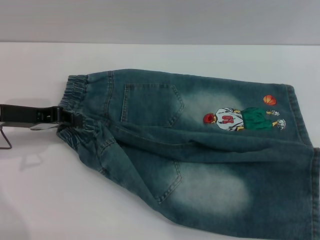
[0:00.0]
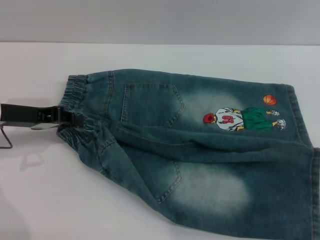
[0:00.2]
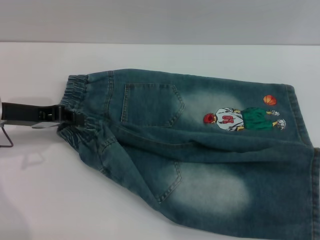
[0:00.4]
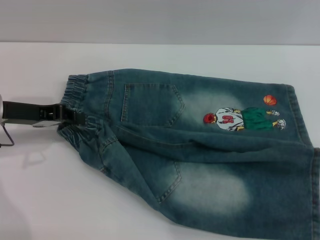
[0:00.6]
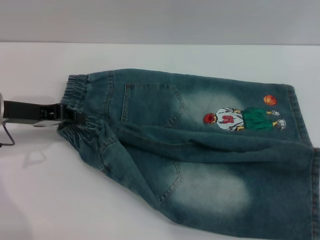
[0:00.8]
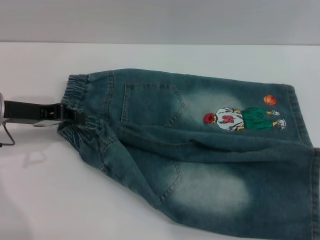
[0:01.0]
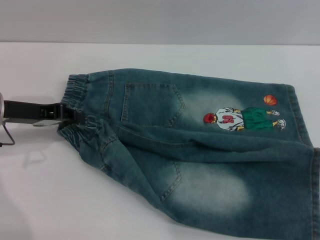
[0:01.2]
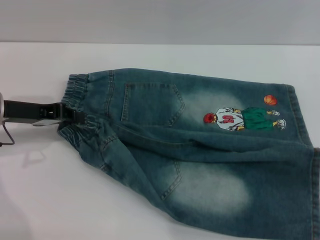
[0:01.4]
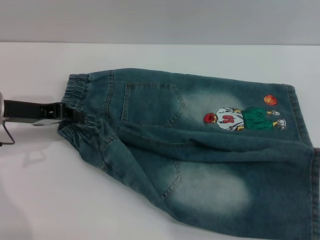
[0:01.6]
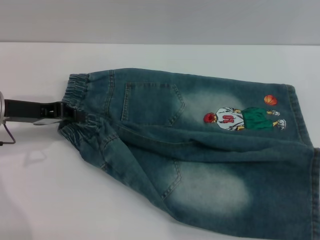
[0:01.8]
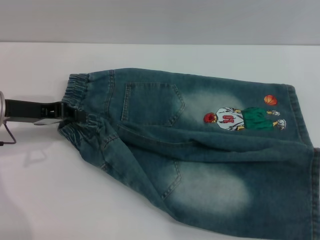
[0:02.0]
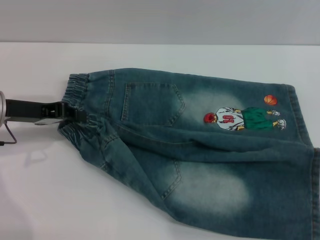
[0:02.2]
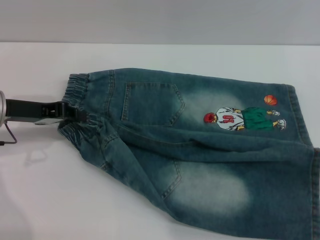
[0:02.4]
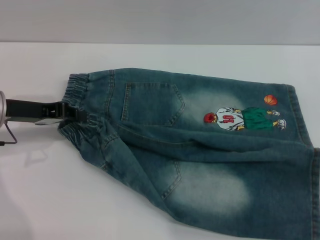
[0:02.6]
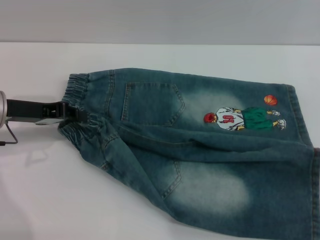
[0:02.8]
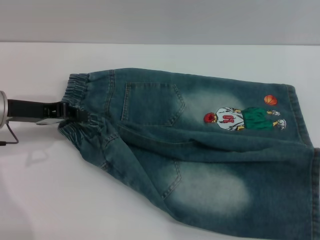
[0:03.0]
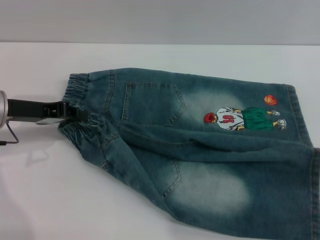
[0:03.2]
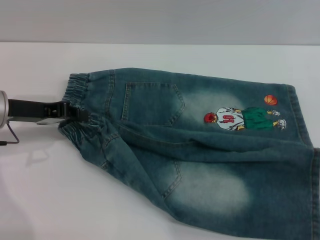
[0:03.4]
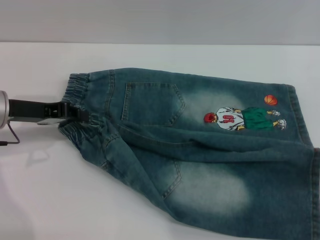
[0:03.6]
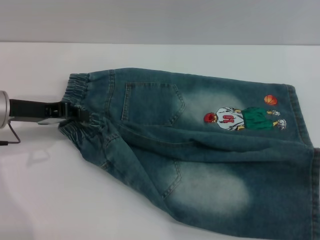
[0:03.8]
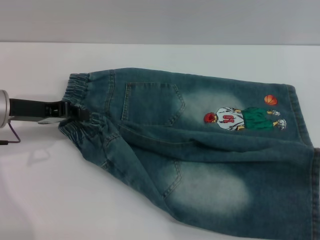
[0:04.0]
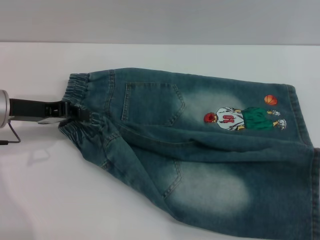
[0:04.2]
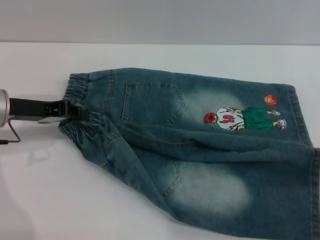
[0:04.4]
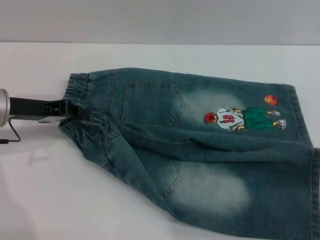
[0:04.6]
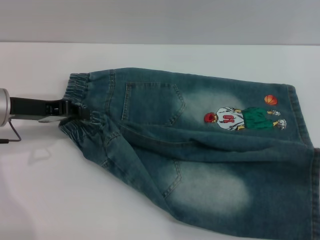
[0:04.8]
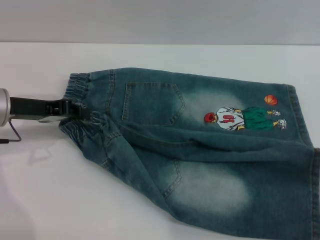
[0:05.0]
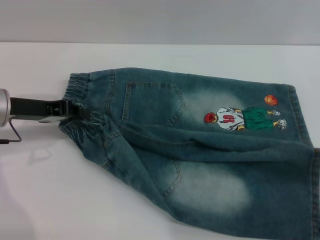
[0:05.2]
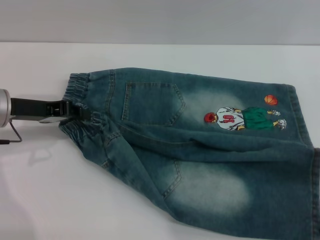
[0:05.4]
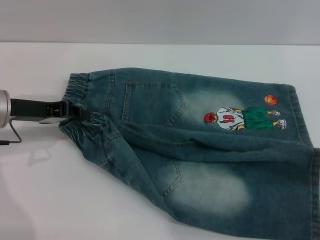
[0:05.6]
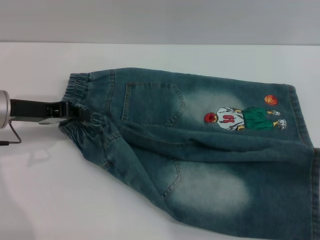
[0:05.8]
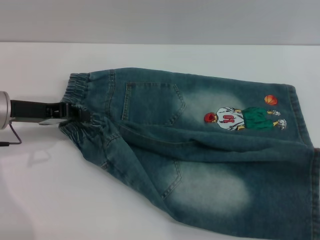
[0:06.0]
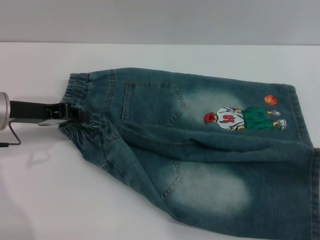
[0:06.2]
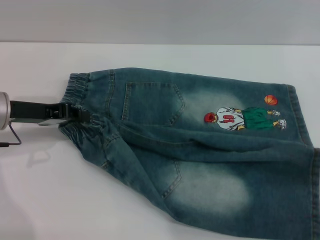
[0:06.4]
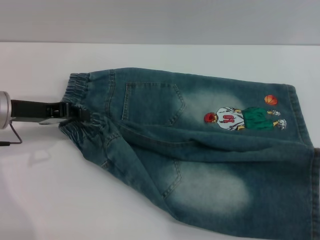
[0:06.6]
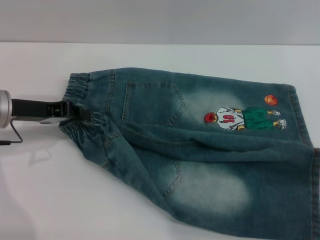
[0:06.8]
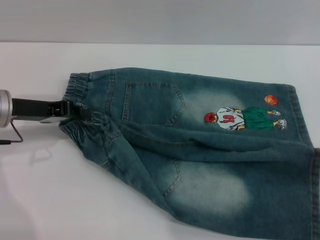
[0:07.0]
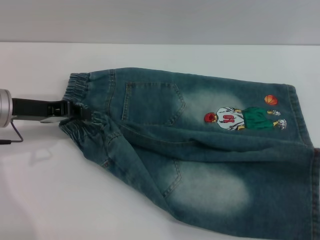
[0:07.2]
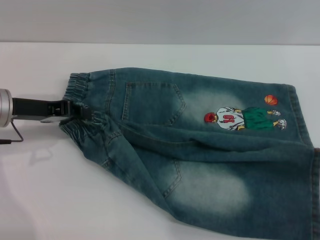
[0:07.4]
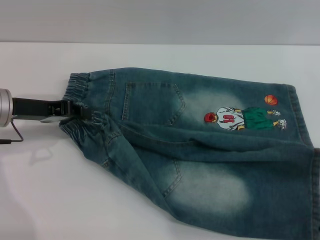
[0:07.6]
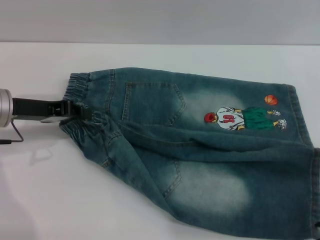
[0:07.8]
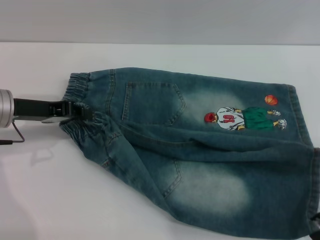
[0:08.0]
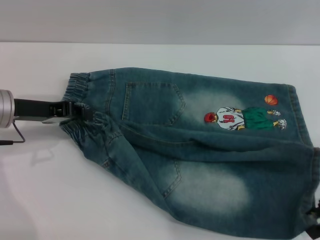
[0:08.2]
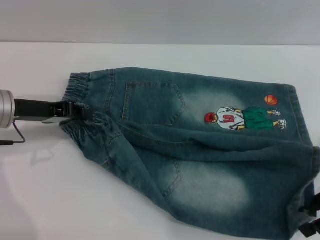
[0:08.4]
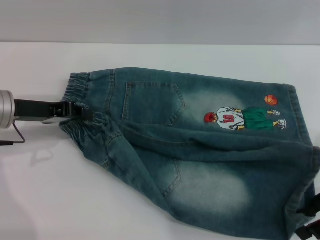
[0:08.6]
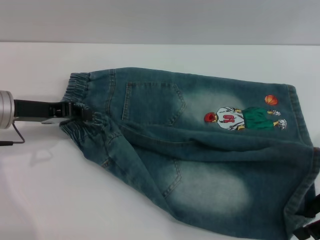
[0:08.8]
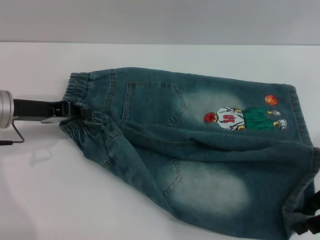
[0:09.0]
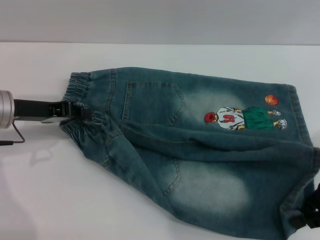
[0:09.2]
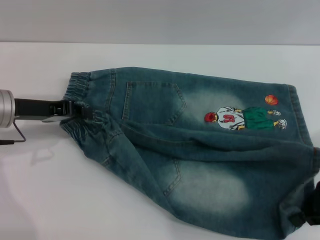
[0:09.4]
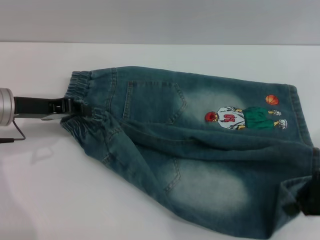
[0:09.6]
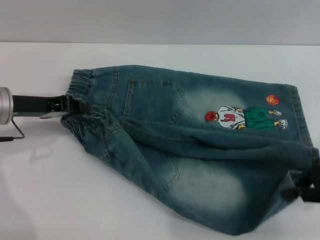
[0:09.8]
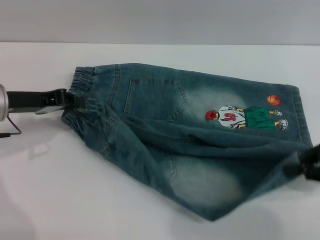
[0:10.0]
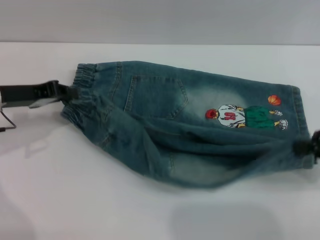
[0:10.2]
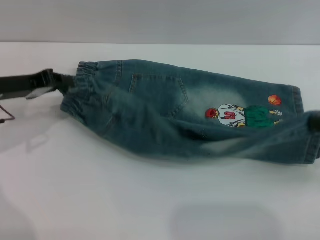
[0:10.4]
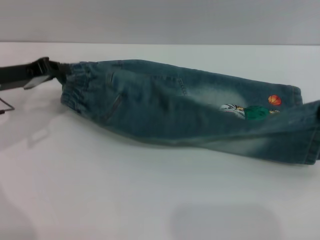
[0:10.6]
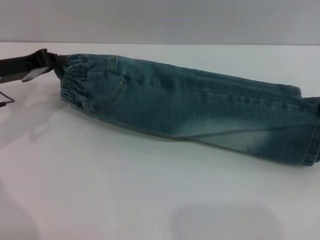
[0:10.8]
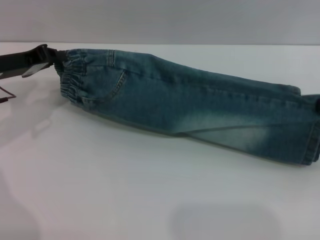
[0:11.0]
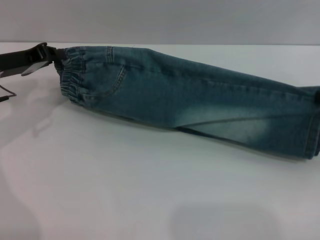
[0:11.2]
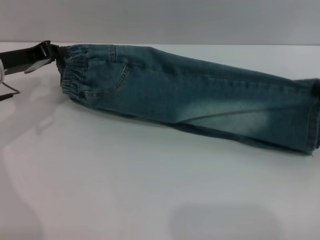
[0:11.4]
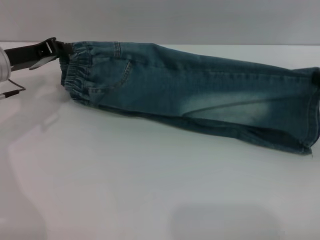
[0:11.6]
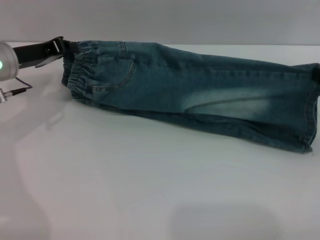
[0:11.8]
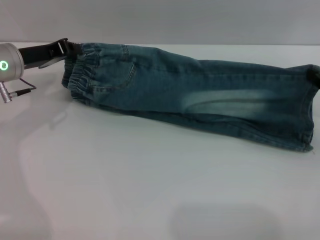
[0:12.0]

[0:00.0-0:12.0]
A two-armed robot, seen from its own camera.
0:00.0 to 0:01.6: The right gripper moves about 5 cm.
0:01.6 to 0:04.4: The grippers move only a little.
0:06.0 to 0:07.6: The grippers stay close to where they were, moving slightly.
0:07.6 to 0:09.0: The grippers make only small movements.
0:09.0 to 0:10.4: The right gripper goes roughly 5 cm to the right, and closes up.
0:10.4 to 0:12.0: The right gripper moves forward, about 5 cm; the left gripper shifts by roughly 5 cm.

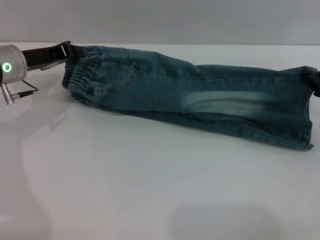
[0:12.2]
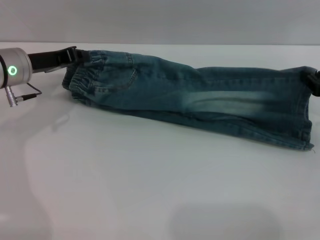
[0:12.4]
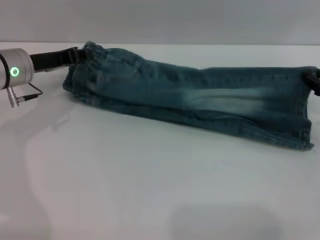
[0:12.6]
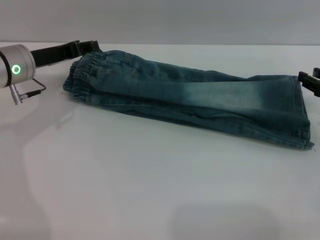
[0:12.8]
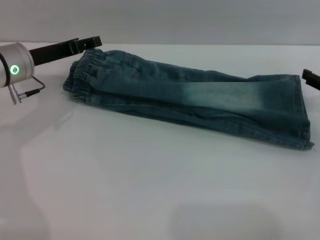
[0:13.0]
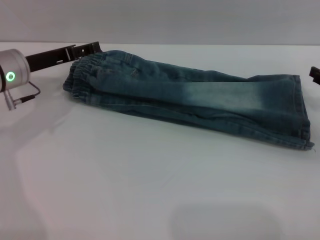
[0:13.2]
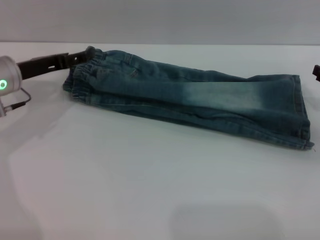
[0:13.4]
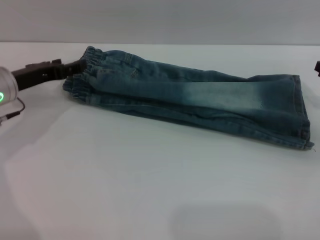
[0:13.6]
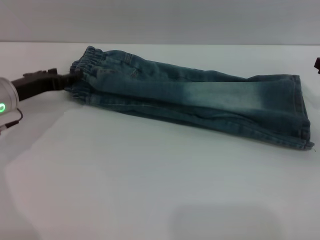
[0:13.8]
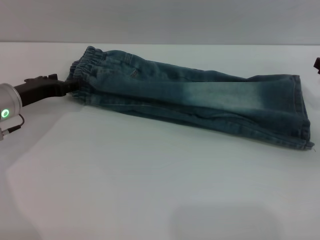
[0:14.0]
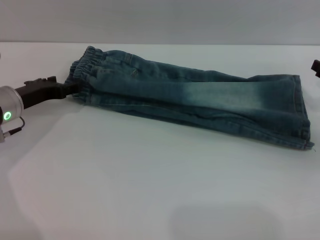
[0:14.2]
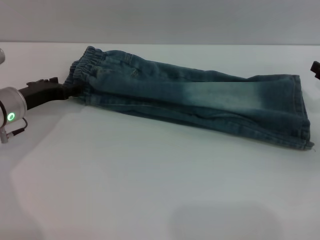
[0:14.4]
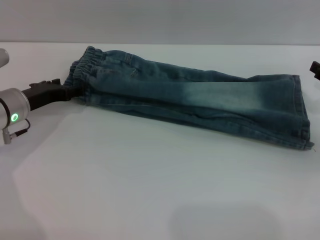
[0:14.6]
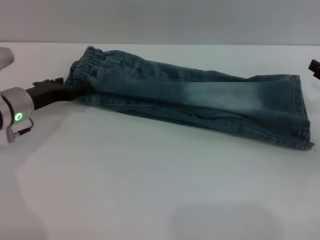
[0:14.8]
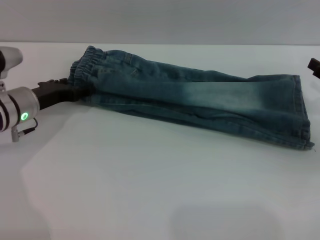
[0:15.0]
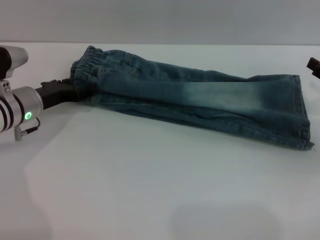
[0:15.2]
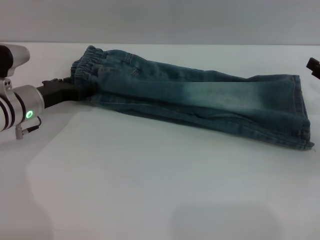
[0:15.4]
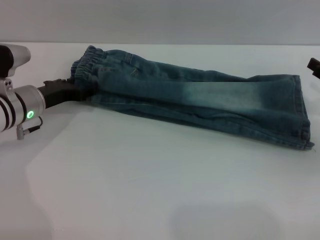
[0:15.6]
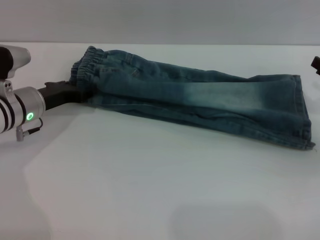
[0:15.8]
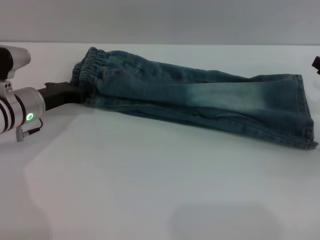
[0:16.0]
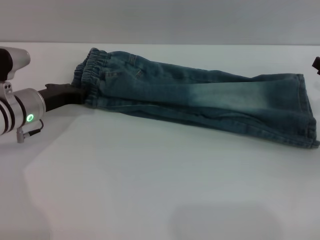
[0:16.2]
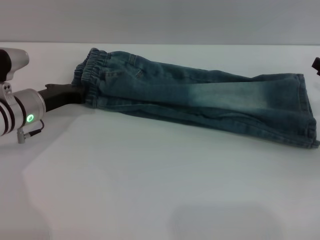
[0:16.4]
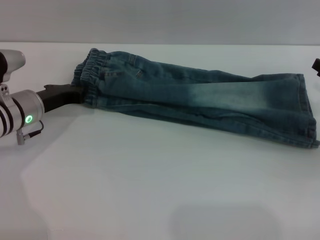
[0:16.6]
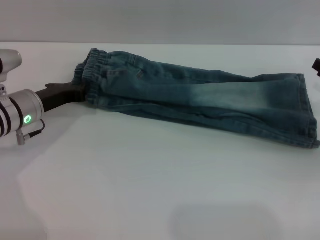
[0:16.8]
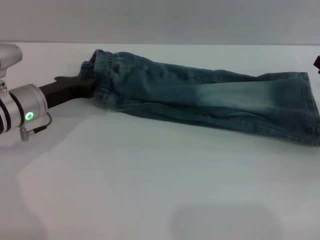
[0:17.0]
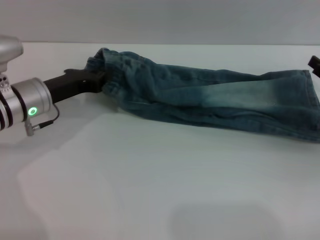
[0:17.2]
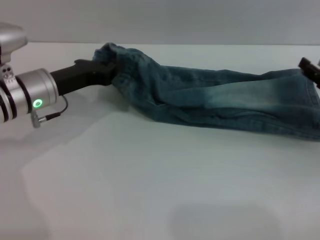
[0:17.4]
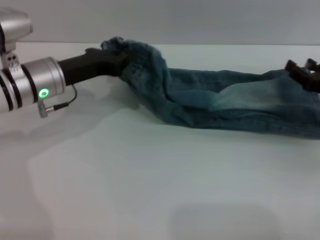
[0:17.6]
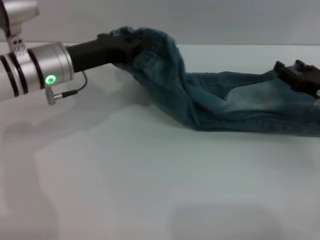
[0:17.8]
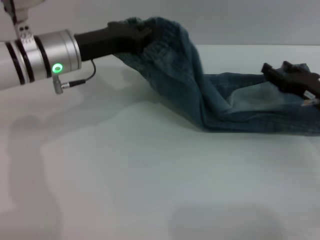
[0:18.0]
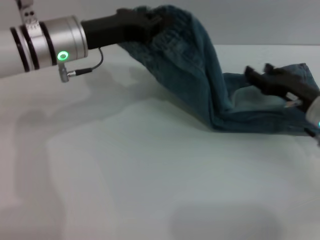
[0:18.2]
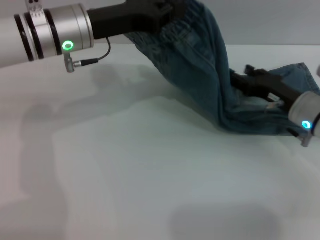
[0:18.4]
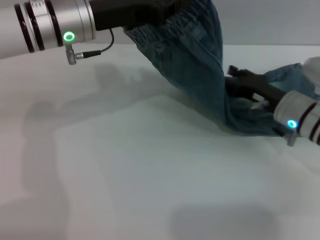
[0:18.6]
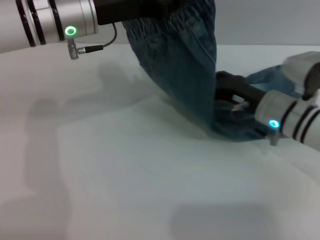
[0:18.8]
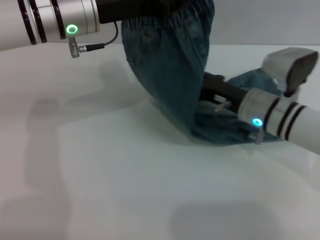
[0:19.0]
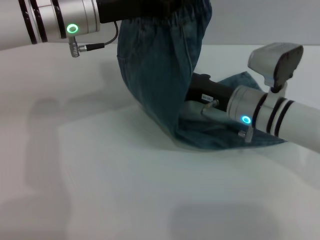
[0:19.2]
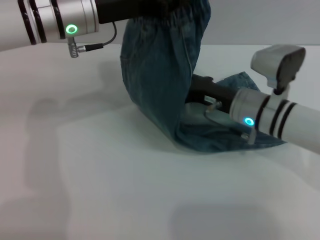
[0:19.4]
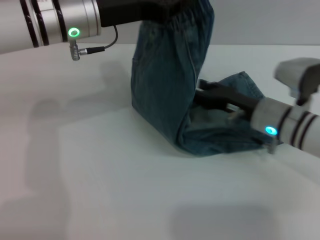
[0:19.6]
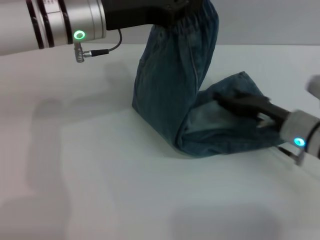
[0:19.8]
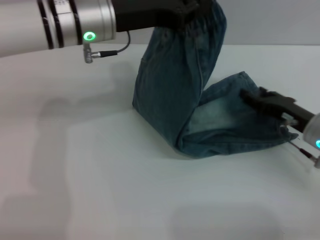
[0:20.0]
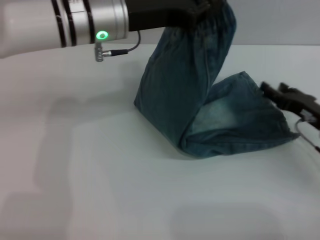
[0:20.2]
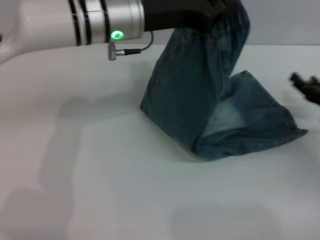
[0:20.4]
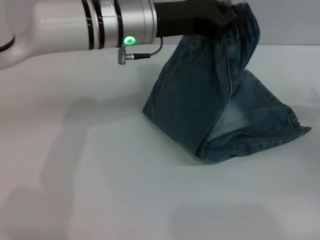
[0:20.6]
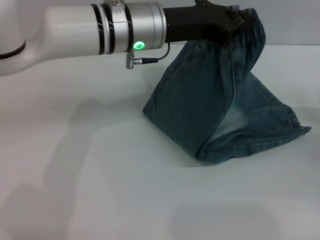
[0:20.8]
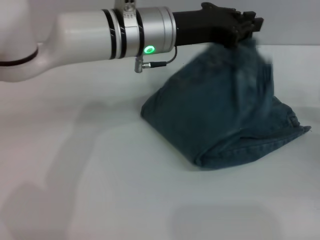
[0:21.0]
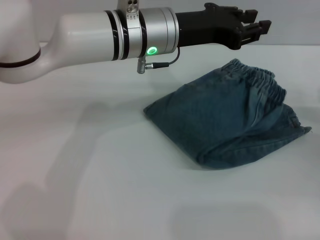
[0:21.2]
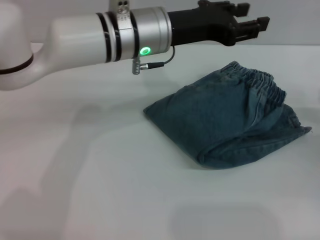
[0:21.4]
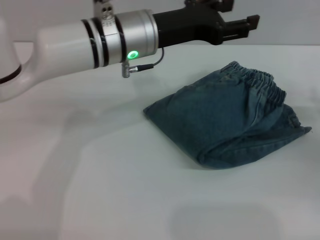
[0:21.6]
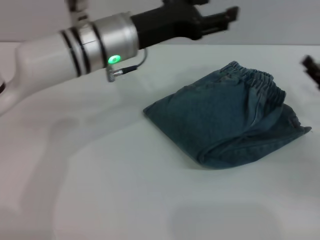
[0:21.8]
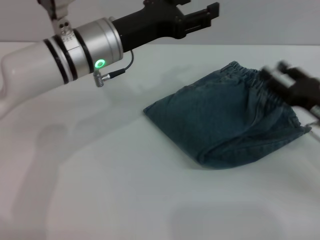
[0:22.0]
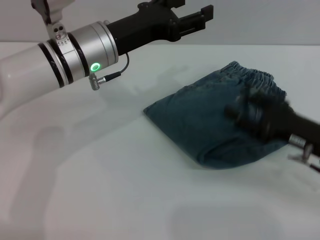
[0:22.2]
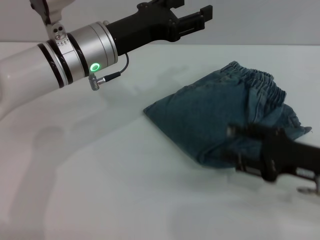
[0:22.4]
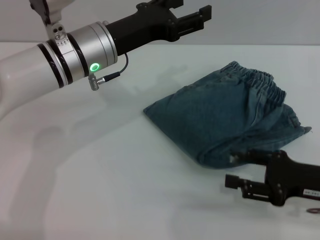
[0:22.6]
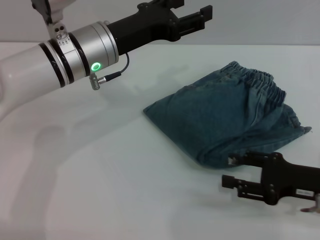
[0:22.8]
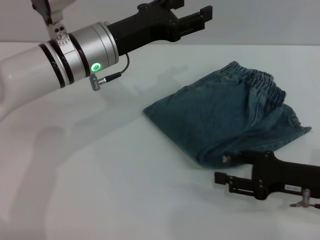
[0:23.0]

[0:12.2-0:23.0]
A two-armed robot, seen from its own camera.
Step, 0:14.2 to 0:21.2: Fold the pants from left to right with the left gripper.
0:12.2 to 0:13.8: The left gripper changes place by about 5 cm, and opens its fingers; the right gripper opens its fingers.
0:13.8 to 0:15.2: The grippers move only a little.
0:15.2 to 0:16.8: The left gripper closes.
0:16.8 to 0:18.4: The right gripper heads to the left, covering roughly 10 cm. The left gripper moves upward and to the right, some 15 cm.
0:18.4 to 0:20.0: The right gripper moves about 10 cm to the left and comes back.
0:20.0 to 0:21.4: The two grippers go approximately 10 cm to the right. The left gripper opens.
0:21.4 to 0:23.0: The left gripper goes approximately 5 cm to the left, and opens up; the right gripper goes some 10 cm to the left and backward.
